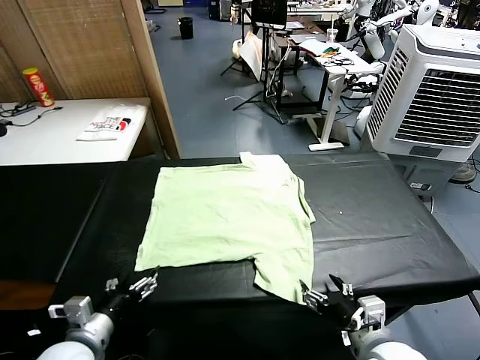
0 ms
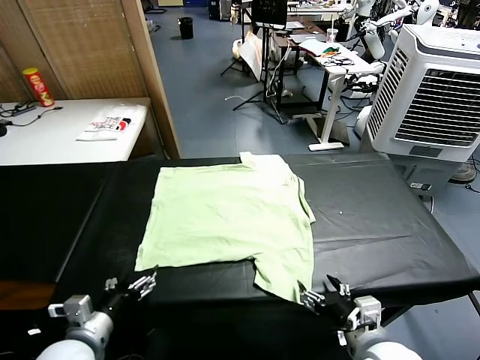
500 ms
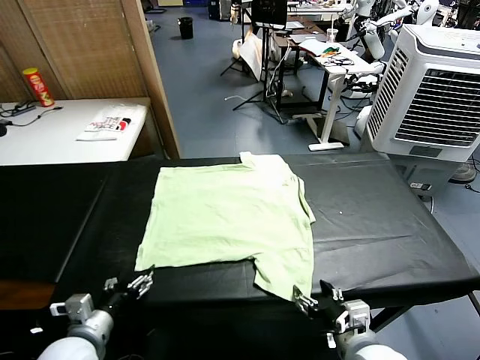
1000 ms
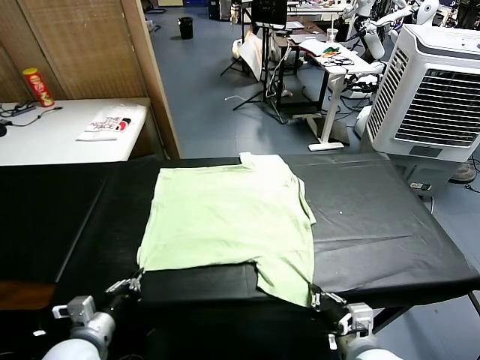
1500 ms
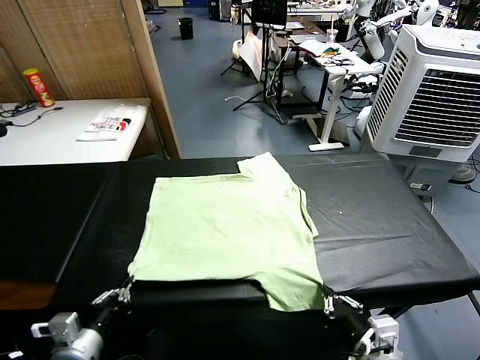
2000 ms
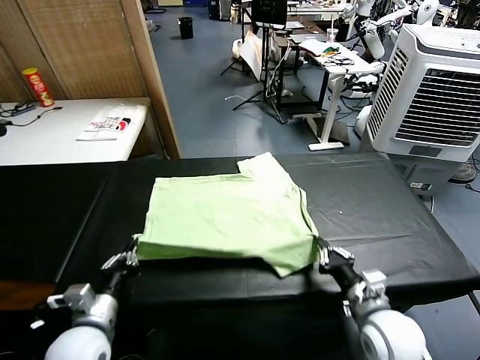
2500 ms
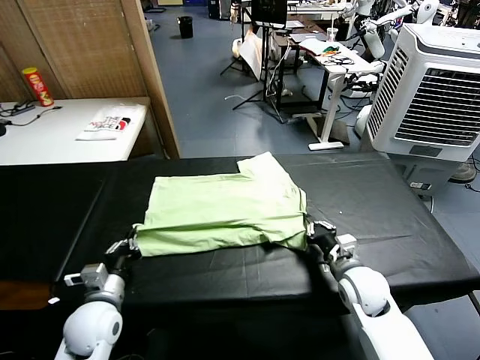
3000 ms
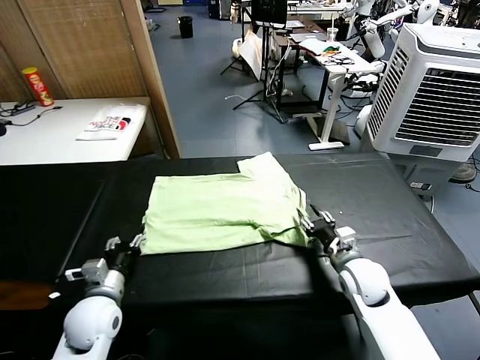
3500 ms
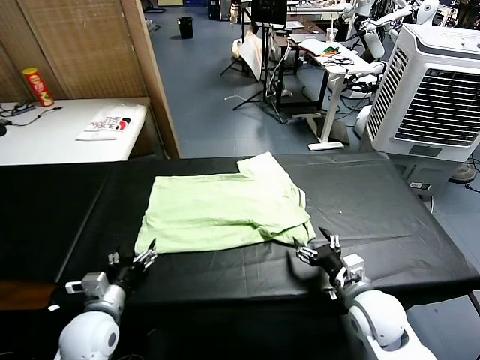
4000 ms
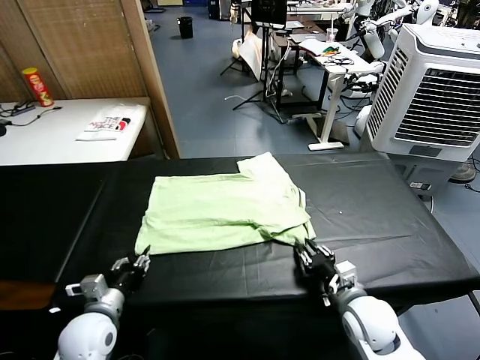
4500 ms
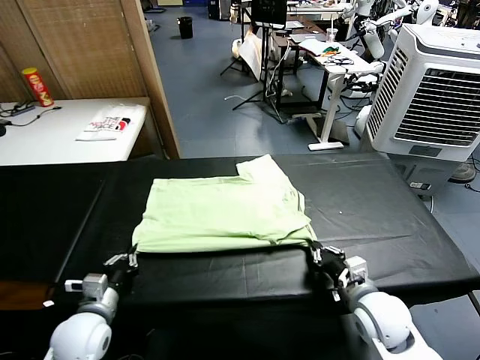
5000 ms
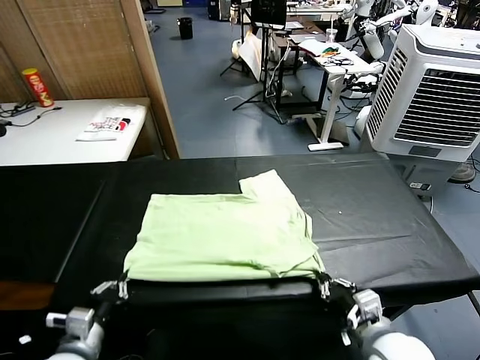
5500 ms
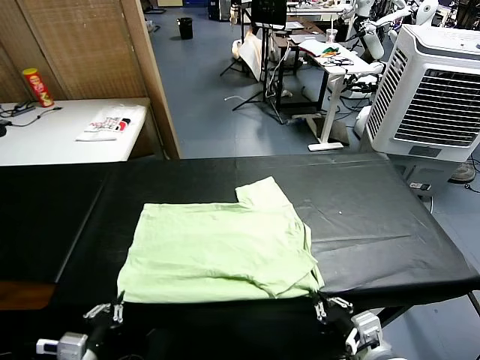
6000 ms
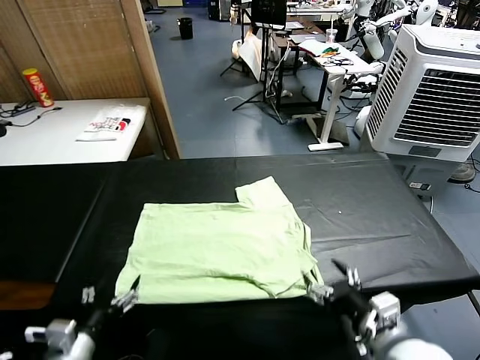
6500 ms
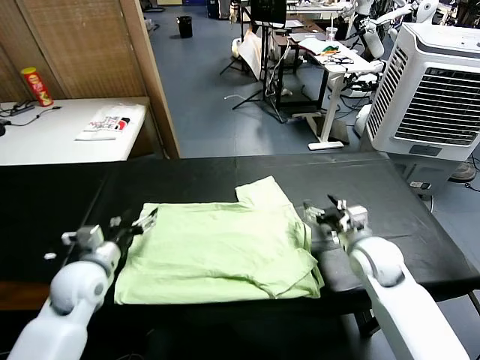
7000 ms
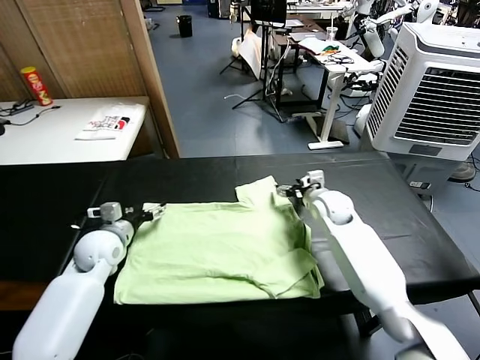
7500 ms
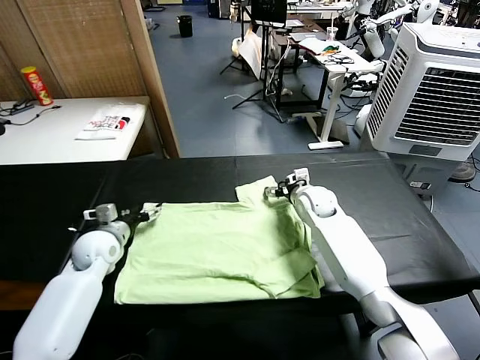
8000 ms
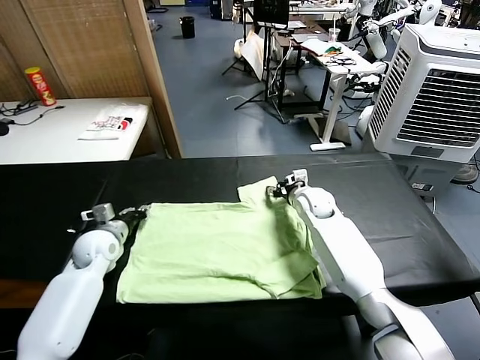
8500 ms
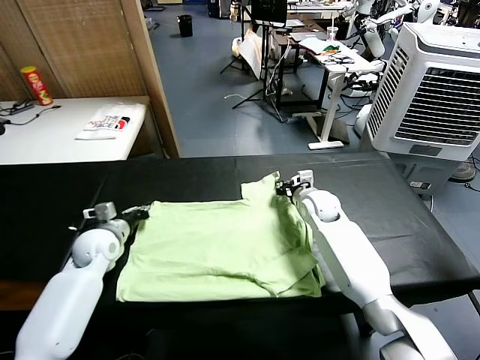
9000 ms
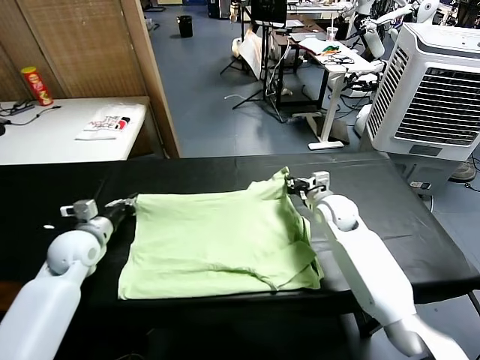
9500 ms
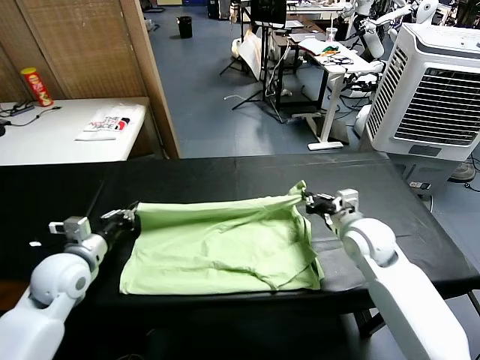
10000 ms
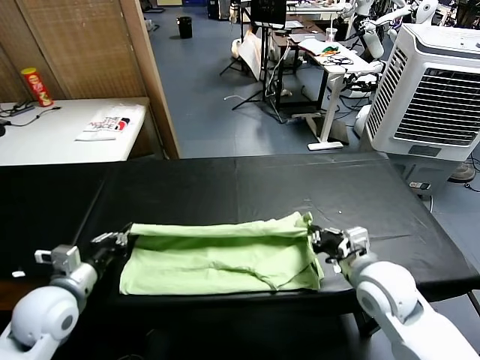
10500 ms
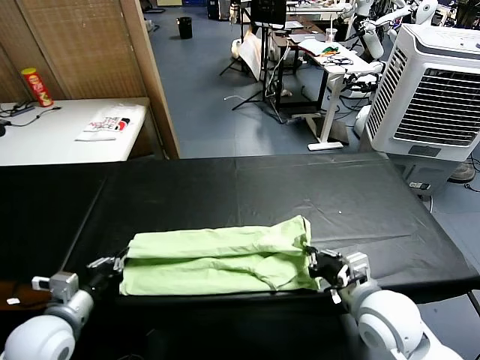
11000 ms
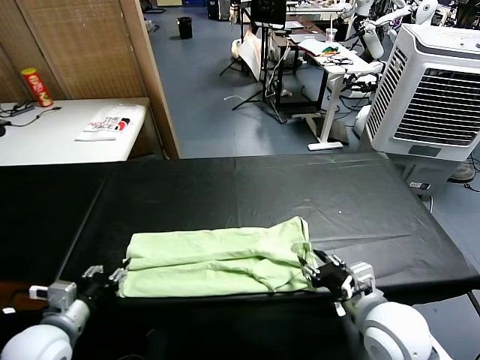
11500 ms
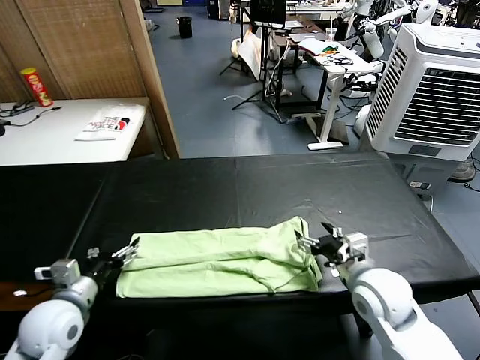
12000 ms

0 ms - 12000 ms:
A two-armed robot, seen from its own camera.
Task of the whole recording: fold and organize the clothes.
Step, 0 ms - 1000 ms: use both grippers simultaneously to clamp the lower edge of the clothing fabric.
Step, 2000 ms - 3500 ms: use both grippers to drag the lower edge of the fabric forward and fold it over the upper edge.
Step, 4000 ms - 6000 ms: Drag the clothes downward with both gripper.
Step, 6500 ms - 8500 ms: use both grippers simultaneously to clamp the upper edge of the clothing fabric.
Step, 9000 ms - 11500 ms: use both grippers to drag the upper edge of the fabric backward and fold it over the lower edge.
2000 ms - 4000 ms: The right gripper moves forward and downward, some 10 cm, and opens its fingers; the left gripper goes about 10 cm forward, and opens up.
4000 ms - 6000 ms: The left gripper heads backward, covering approximately 10 cm, and closes up. Meanwhile the right gripper is displaced backward and upward by about 15 cm, and closes, then opens again.
6000 ms - 8000 ms: The two grippers go roughly 35 cm forward. The left gripper opens.
8000 ms - 10000 ms: The right gripper goes about 20 cm backward, and closes its fingers. The left gripper travels backward and upward by about 10 cm, and closes its fingers.
10000 ms - 12000 ms: The right gripper moves roughly 10 cm backward and comes back, and opens its fingers, while the left gripper goes about 5 cm backward, and opens up.

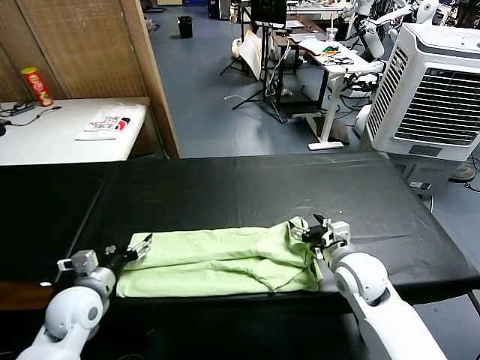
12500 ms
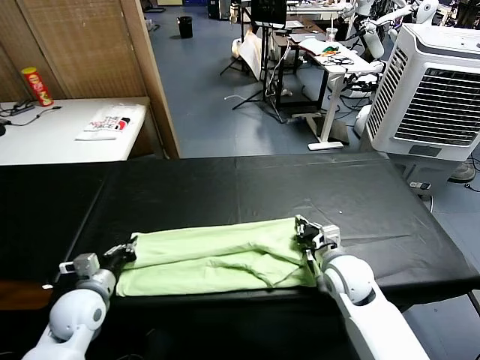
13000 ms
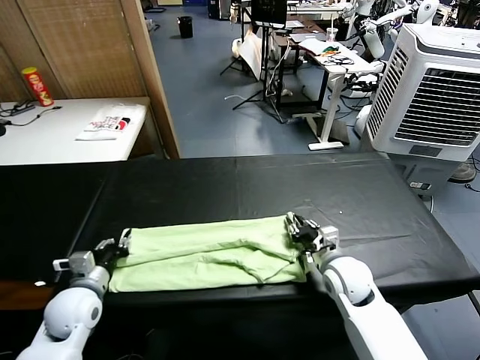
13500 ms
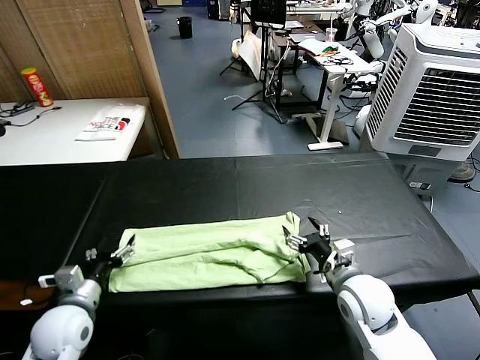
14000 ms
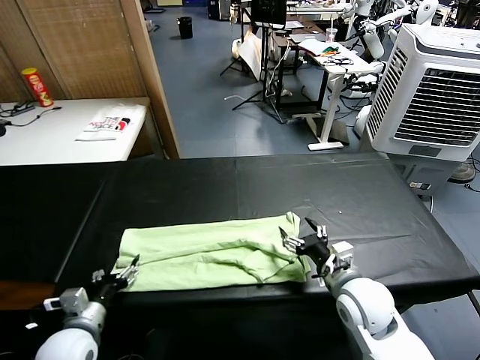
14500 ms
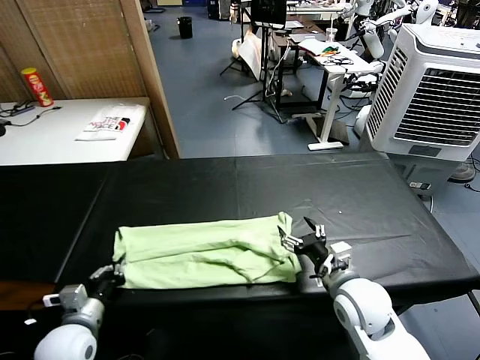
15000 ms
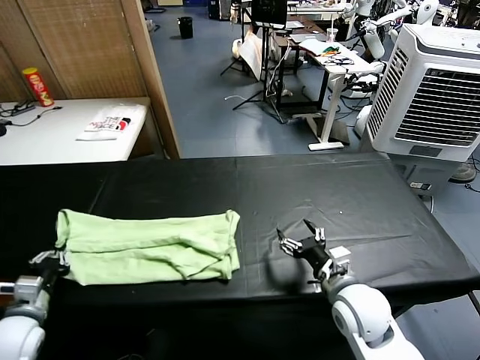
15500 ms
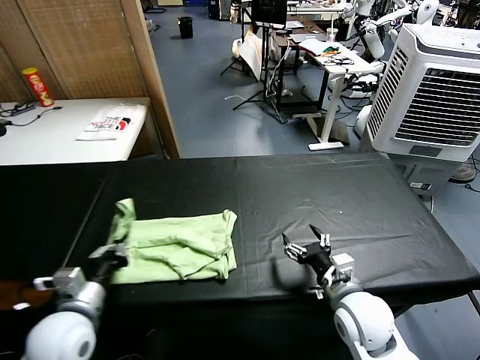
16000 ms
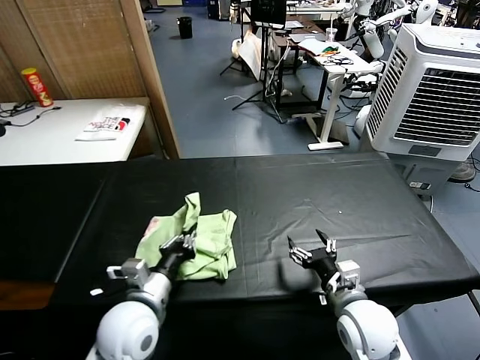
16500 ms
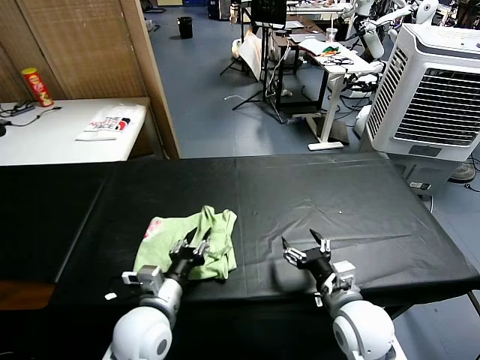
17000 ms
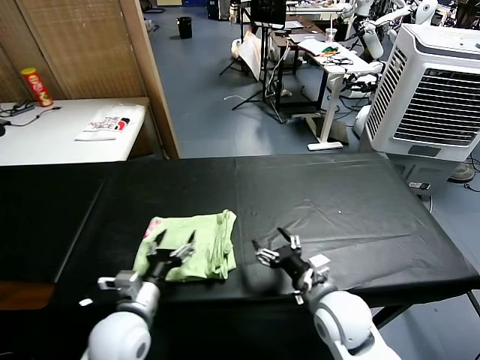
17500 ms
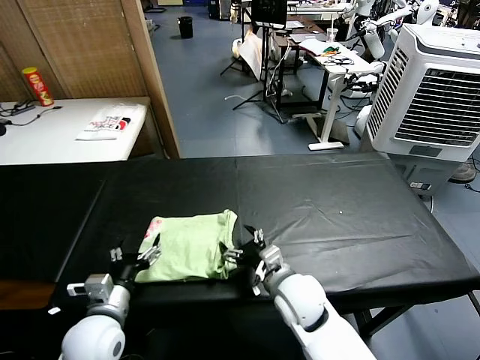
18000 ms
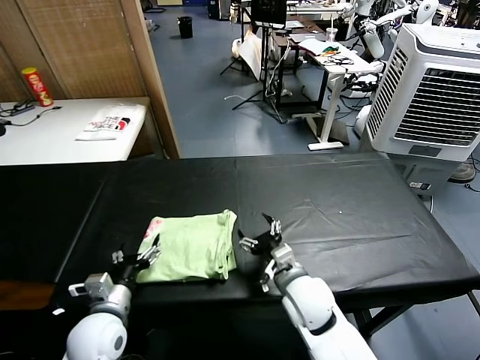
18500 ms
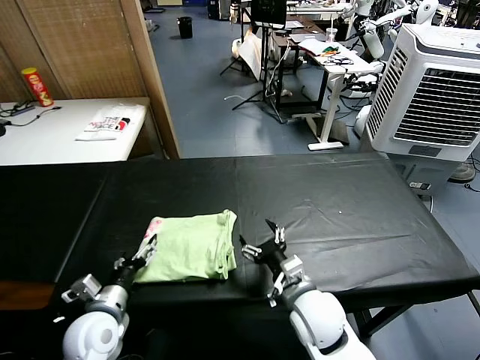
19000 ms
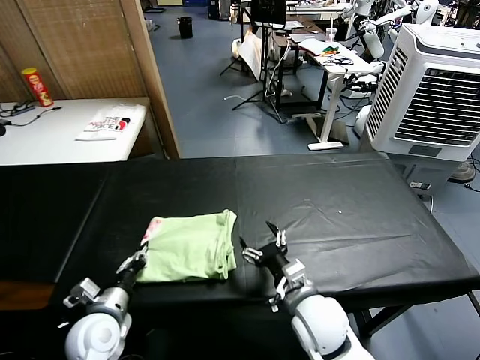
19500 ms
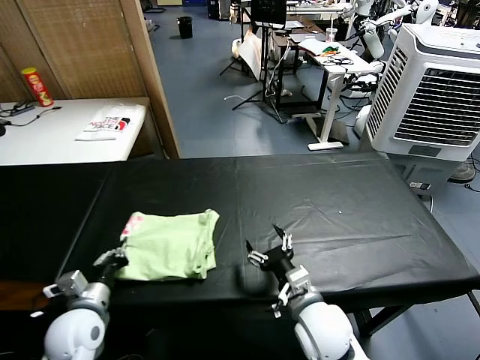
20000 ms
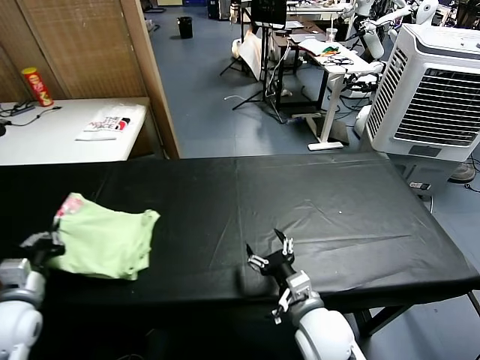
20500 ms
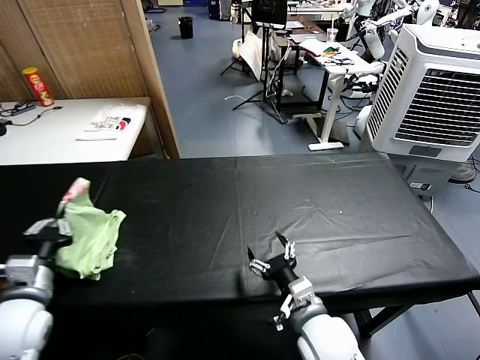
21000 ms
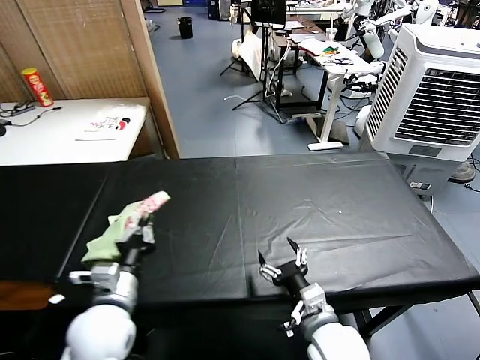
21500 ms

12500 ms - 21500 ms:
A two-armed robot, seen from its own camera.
Task of the whole recording: fold and organize the clothes.
Step, 12500 ms - 14500 ms: use the left gripper to clamp the left edge of the fabric.
Step, 15000 ms - 17000 ms: use the left gripper to drag the left edge of the fabric to the left and folds it over the right edge.
12500 ms - 14500 ms: The two grippers go about 5 cm backward. The left gripper closes, then opens again, while the right gripper closes, then opens again.
14500 ms - 17000 ms: The left gripper moves to the right, roughly 15 cm, and closes and opens again.
17000 ms - 19500 ms: The right gripper travels to the left by some 5 cm. The left gripper goes some 15 cm to the left and downward, and opens and closes again.
19500 ms - 21500 ms: The right gripper changes place by roughly 5 cm. Meanwhile the left gripper shifts about 10 cm upward, and goes to the left and returns, some 10 cm each way.

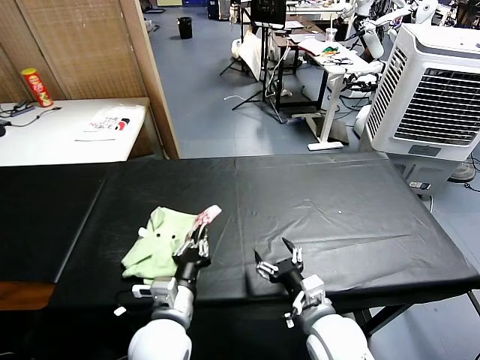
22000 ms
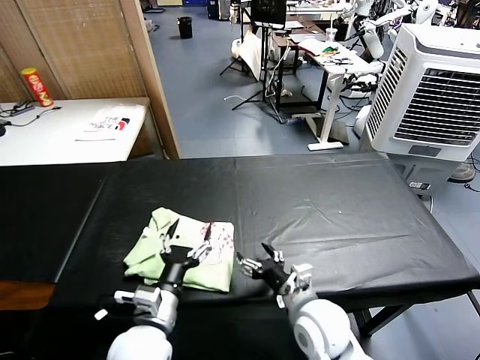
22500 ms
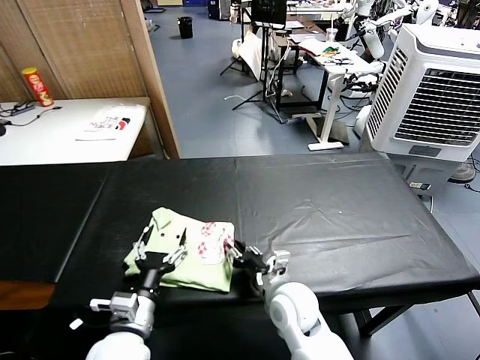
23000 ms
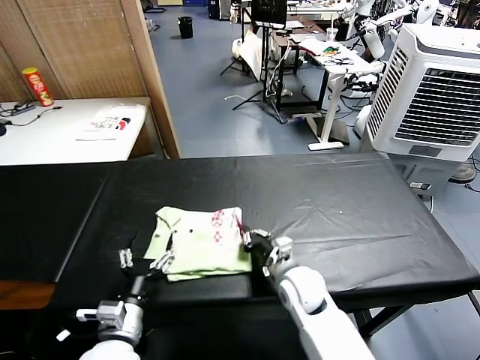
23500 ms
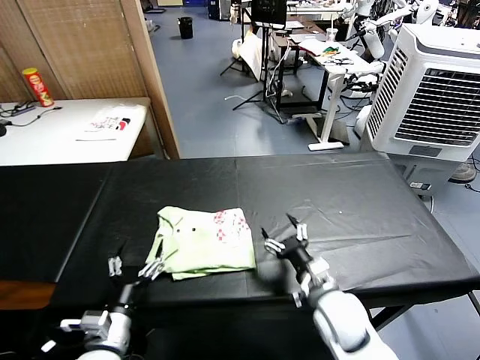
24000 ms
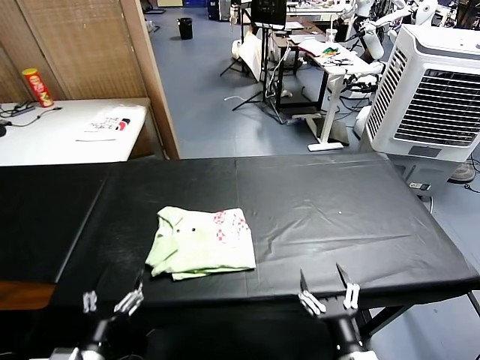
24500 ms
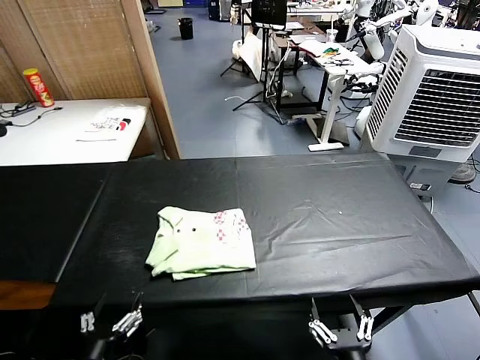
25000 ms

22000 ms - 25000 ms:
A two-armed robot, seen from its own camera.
Task of the whole recording: fold and organize the clothes.
Step, 22500 ms - 23500 ms: Drag the clothes to the center of the table.
22000 ms - 23500 ms: The right gripper shifts some 10 cm forward, and closes; the left gripper moves to the left, approximately 10 cm, and opens its fingers.
23500 ms - 25000 ms: The left gripper moves backward, approximately 10 cm. The right gripper shifts about 30 cm backward, and opens.
